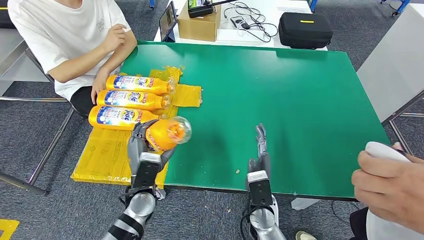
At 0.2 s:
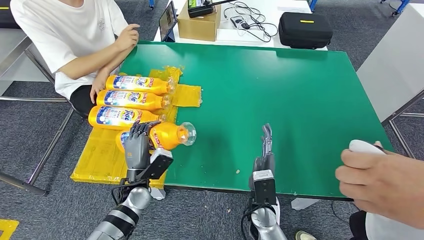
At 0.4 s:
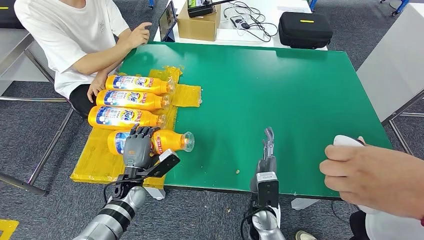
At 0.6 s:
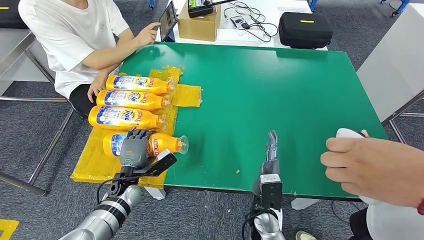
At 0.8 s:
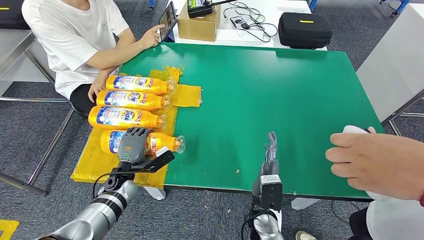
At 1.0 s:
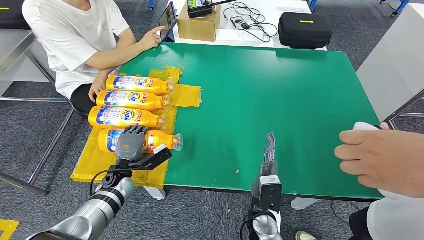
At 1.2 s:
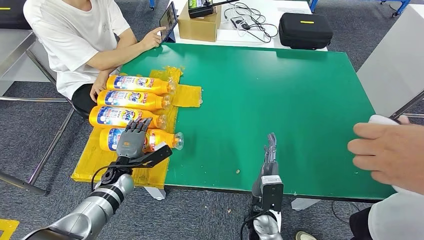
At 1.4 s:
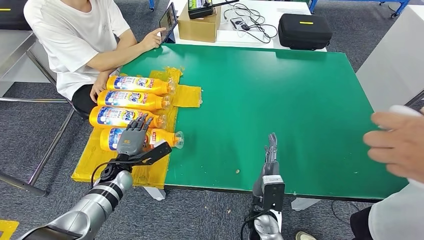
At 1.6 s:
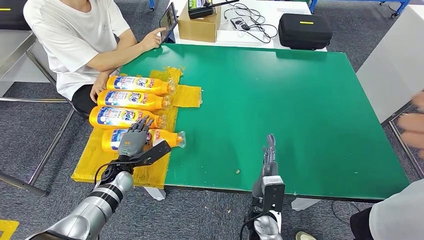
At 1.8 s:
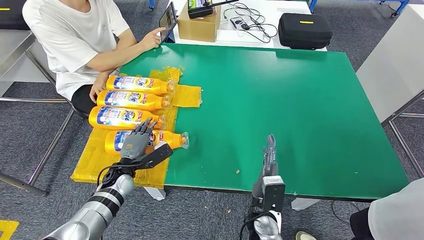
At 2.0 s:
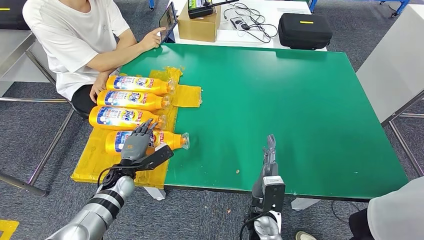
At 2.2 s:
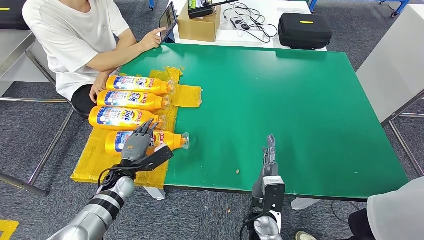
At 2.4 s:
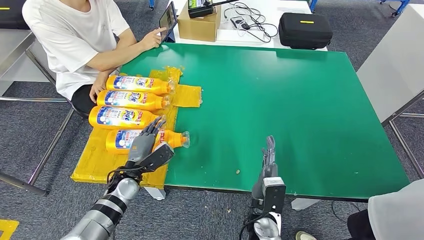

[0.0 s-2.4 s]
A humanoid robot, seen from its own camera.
Step, 0.0 to 2.4 s: Flip the fast-moving consumer goods bottle to the front side.
